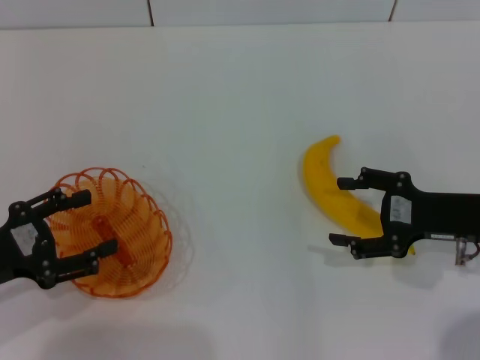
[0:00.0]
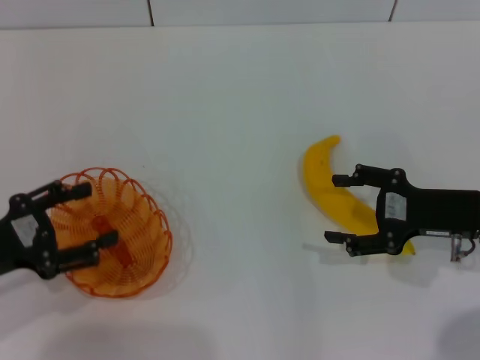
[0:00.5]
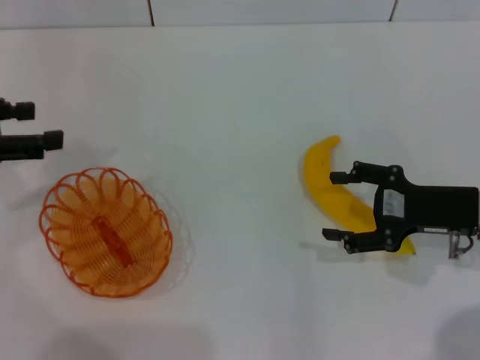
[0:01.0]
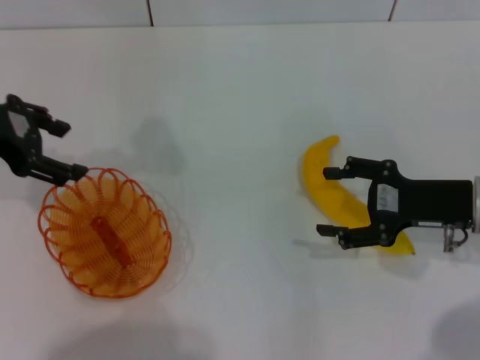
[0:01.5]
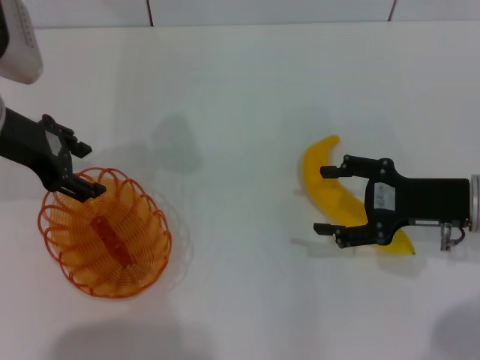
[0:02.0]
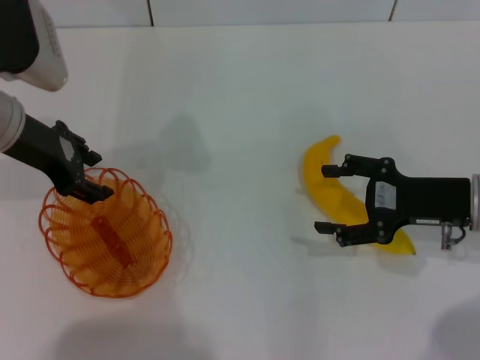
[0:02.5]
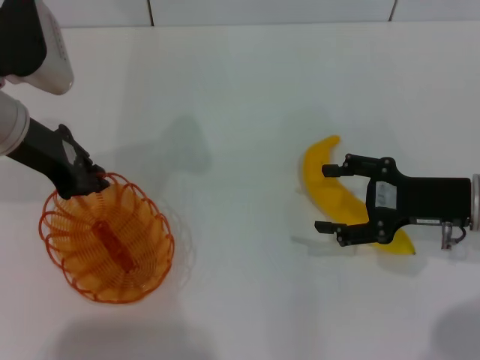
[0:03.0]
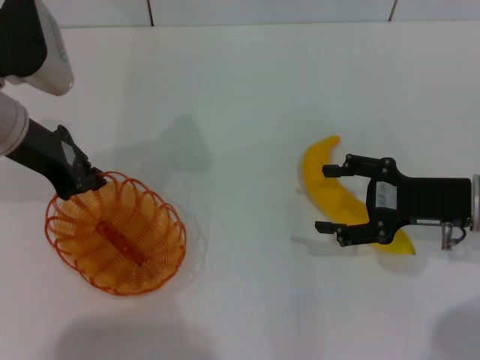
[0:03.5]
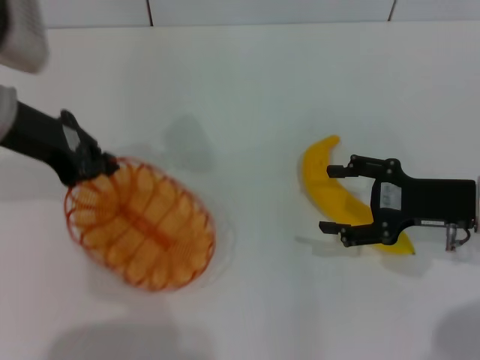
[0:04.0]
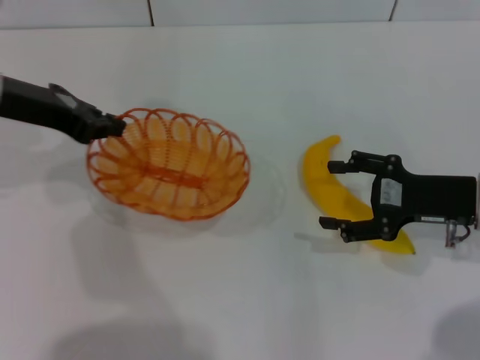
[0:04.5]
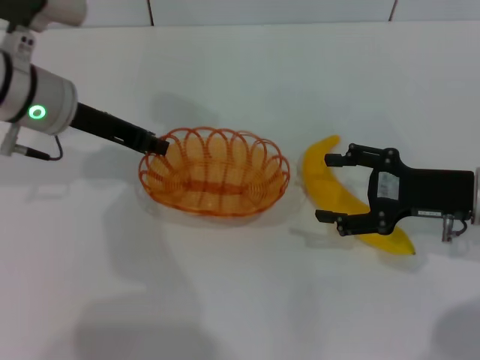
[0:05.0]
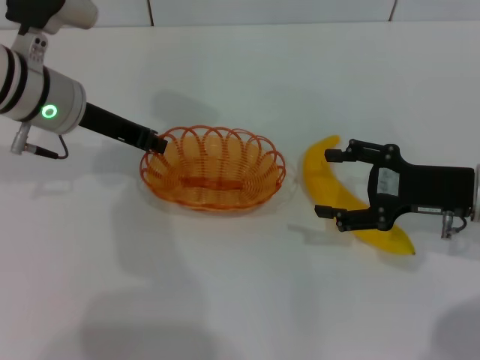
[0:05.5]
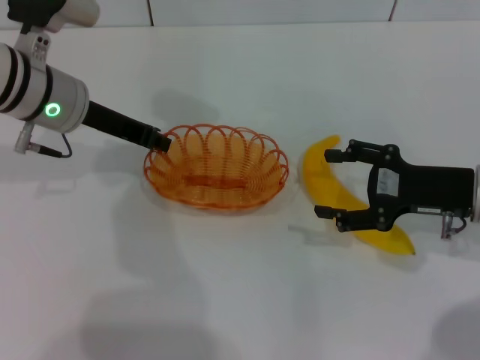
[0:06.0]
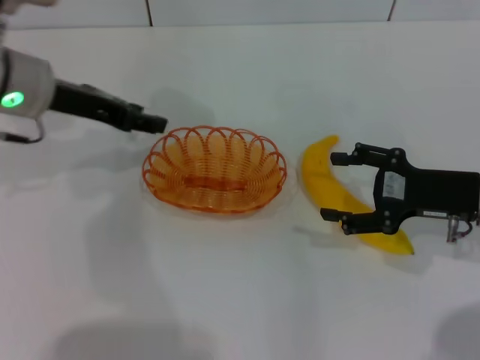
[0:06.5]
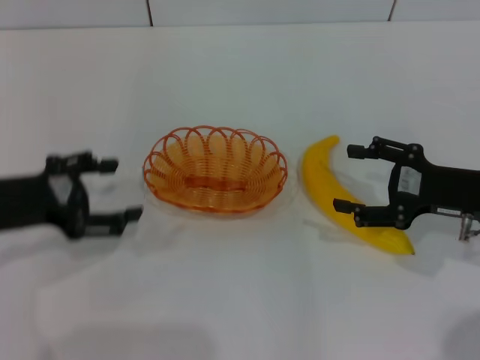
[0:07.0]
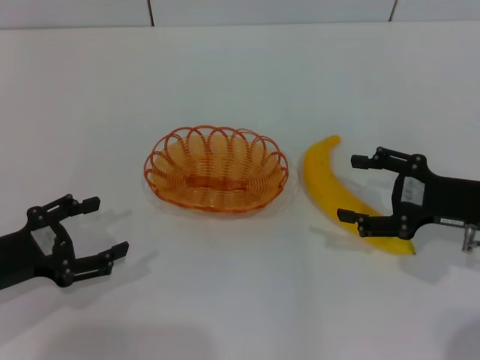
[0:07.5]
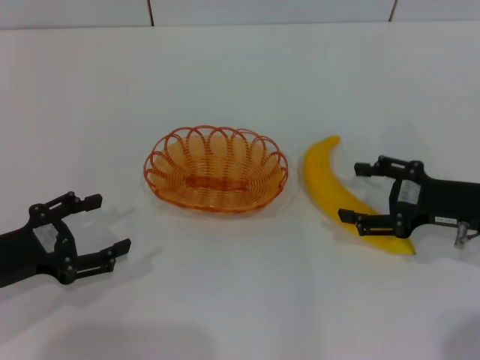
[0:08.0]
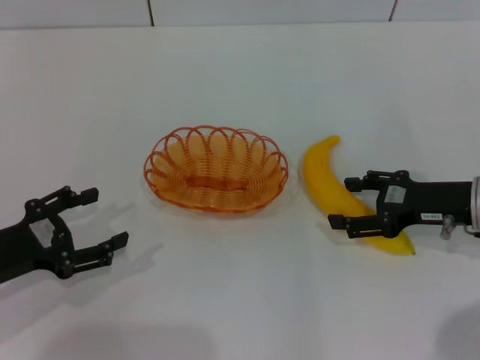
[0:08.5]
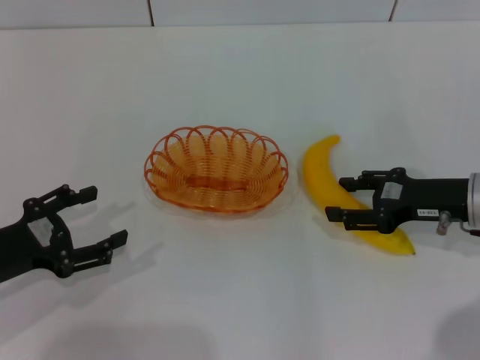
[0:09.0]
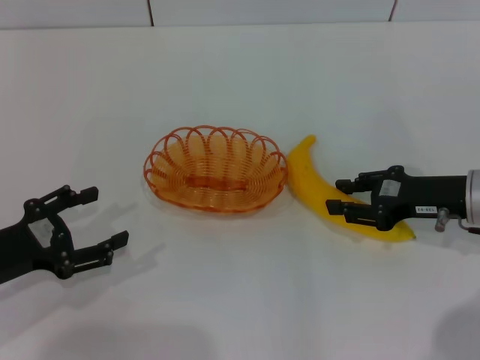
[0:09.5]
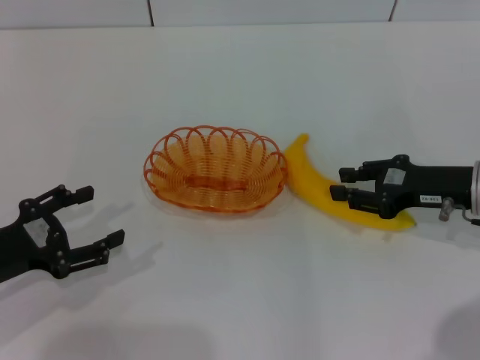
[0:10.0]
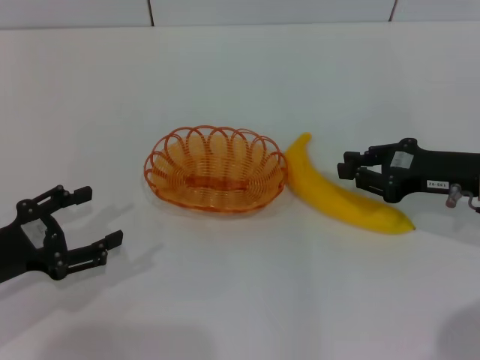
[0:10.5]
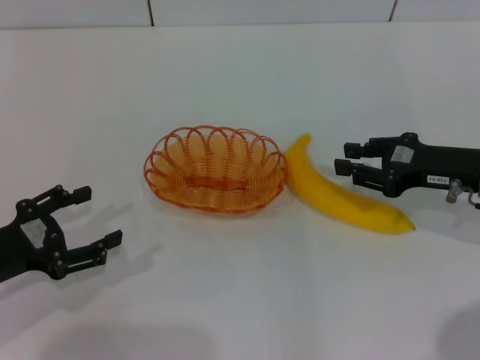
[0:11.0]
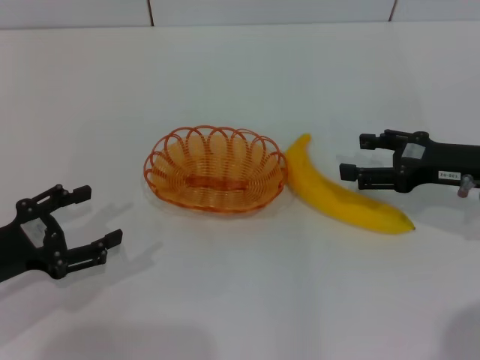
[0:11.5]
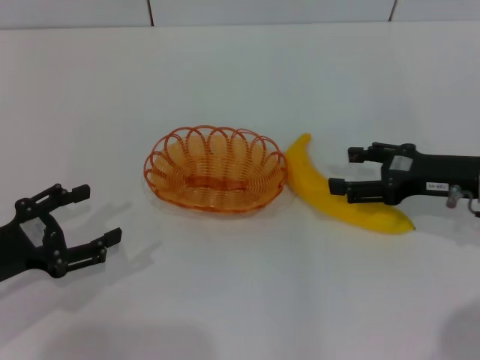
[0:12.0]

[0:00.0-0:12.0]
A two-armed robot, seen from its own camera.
Step, 0:00.0 to 0:04.0: Pick up the basket with the left gripper.
Step, 0:04.5 to 0:06.5: Place the basket in the center of view with the left gripper.
0:00.0 to 0:02.0: The left gripper heads forward, upward and to the right, covering some 20 cm.
0:02.0 to 0:04.0: The left gripper closes up.
0:04.0 to 0:06.0: The left gripper is displaced to the right by about 5 cm.
0:06.0 to 0:08.0: The left gripper goes some 20 cm backward, to the left and downward, and opens up.
0:08.0 to 0:10.0: The right gripper closes.
0:10.0 to 0:12.0: The right gripper opens up.

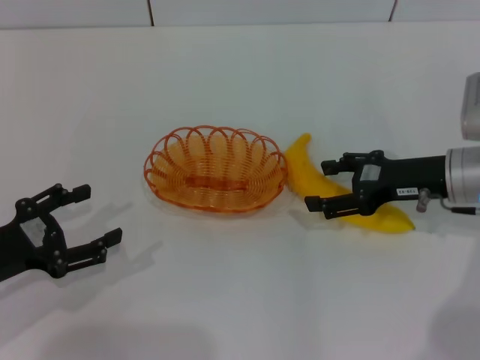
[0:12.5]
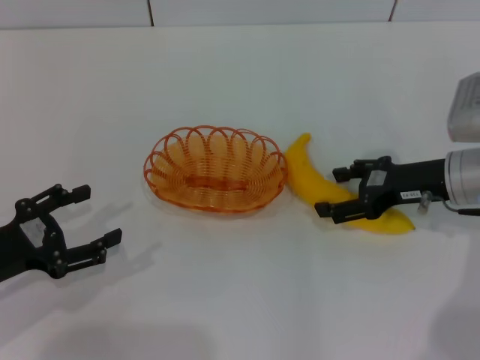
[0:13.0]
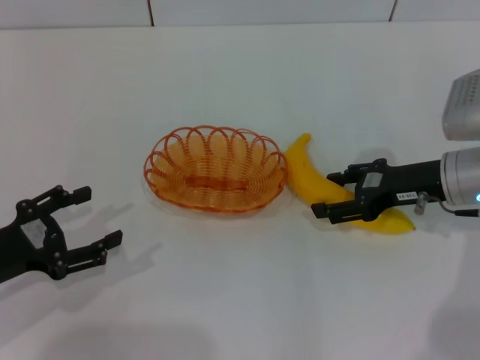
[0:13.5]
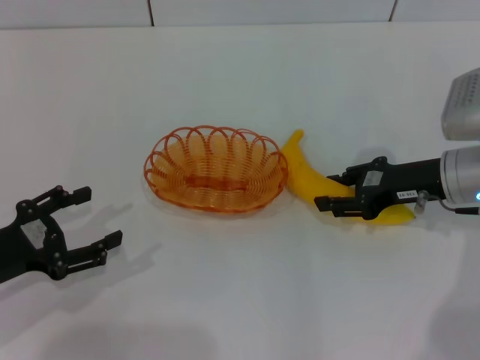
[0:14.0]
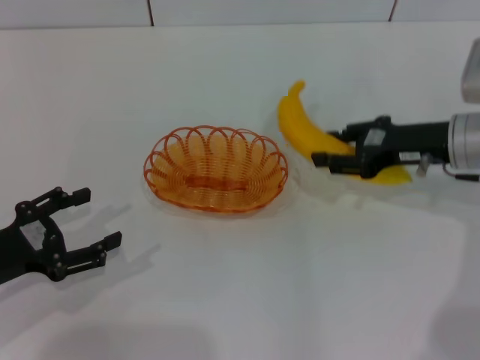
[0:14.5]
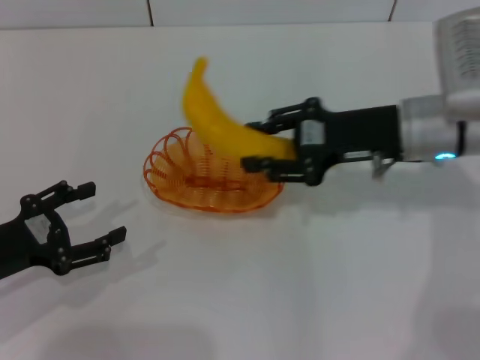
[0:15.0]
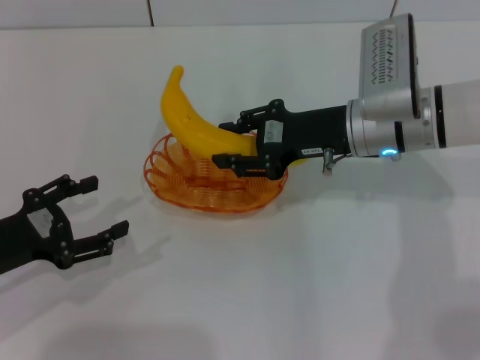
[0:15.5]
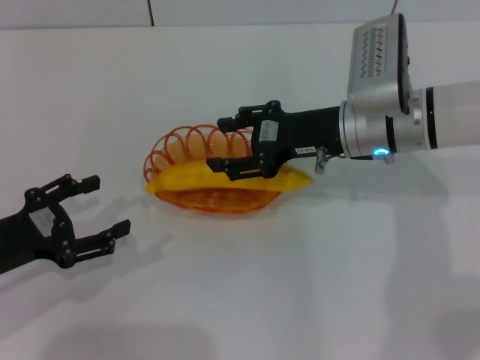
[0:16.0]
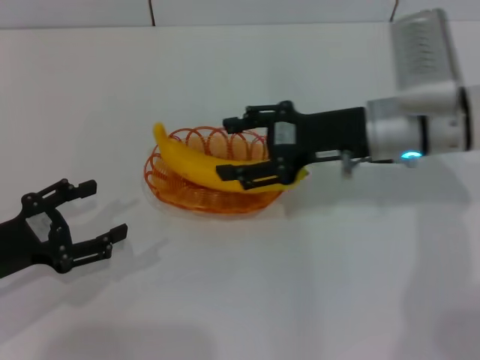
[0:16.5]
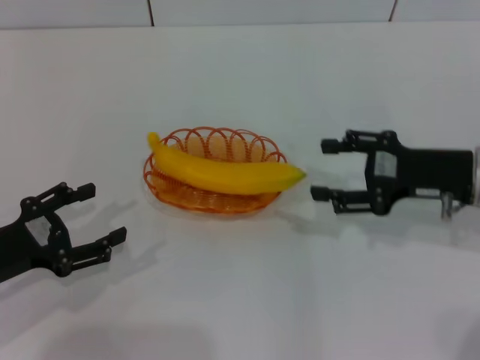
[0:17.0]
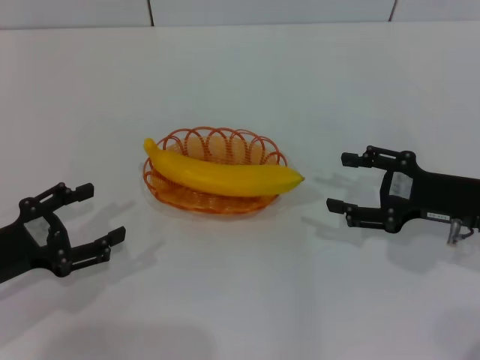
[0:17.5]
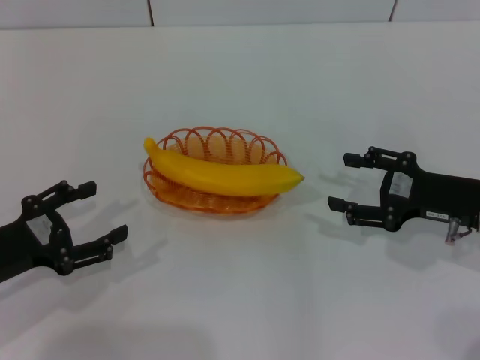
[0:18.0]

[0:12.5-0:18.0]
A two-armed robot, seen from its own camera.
Step, 0:15.0 to 0:17.0: Place the banana into the basket with the right gripper.
0:12.5 to 0:14.5: The right gripper closes its fingers.
0:14.5 to 0:16.0: The right gripper heads to the left, covering roughly 10 cm.
0:16.0 to 0:18.0: The right gripper goes approximately 15 cm to the right and backward.
